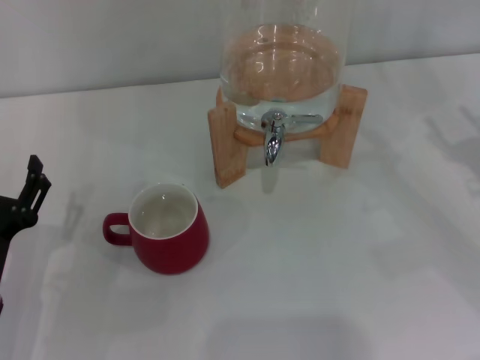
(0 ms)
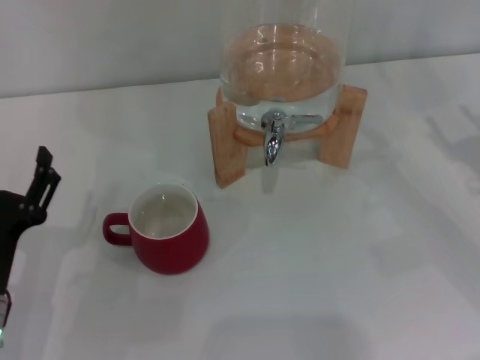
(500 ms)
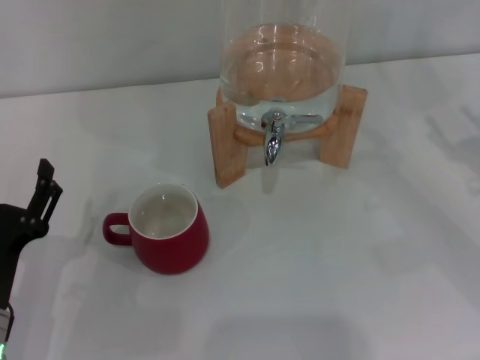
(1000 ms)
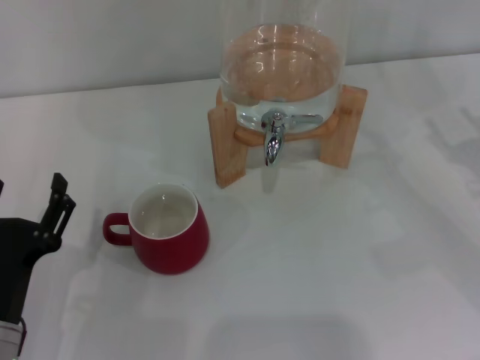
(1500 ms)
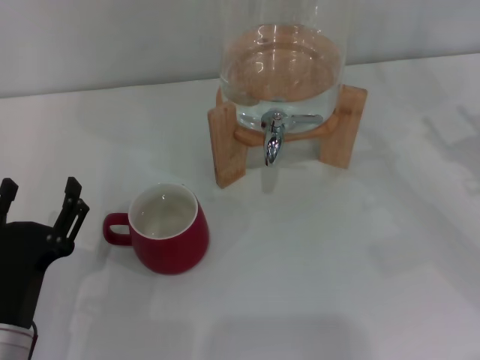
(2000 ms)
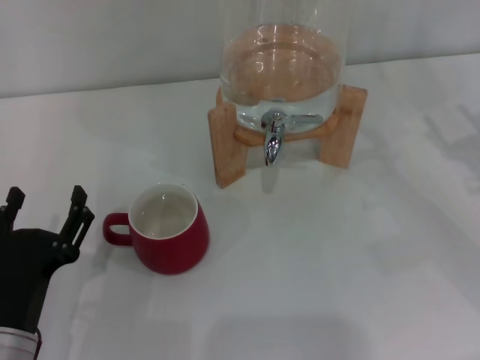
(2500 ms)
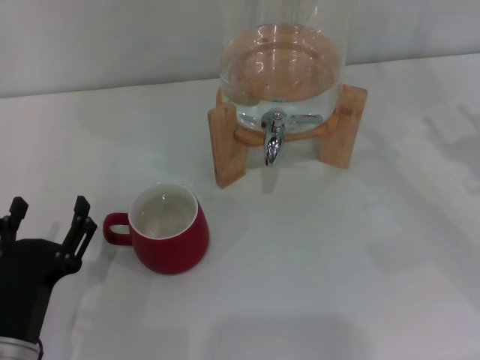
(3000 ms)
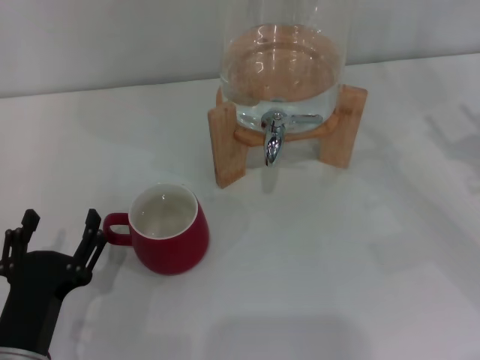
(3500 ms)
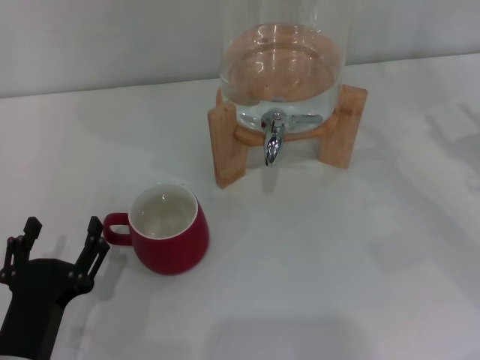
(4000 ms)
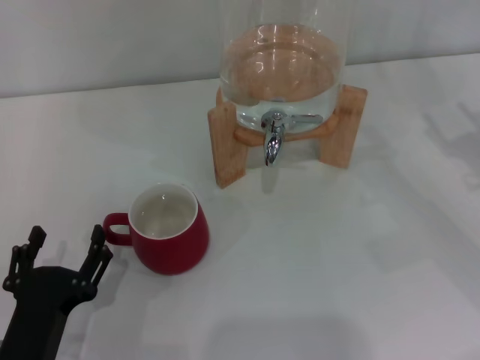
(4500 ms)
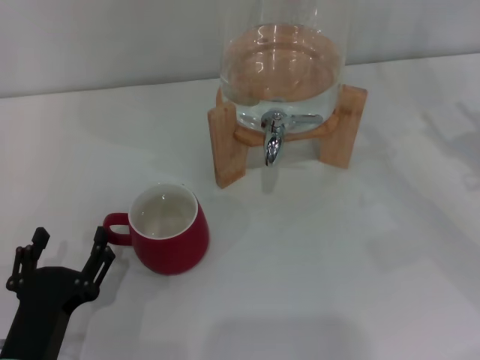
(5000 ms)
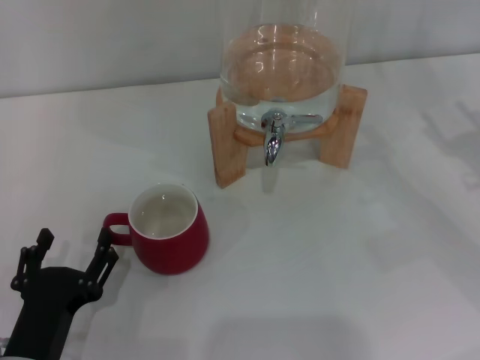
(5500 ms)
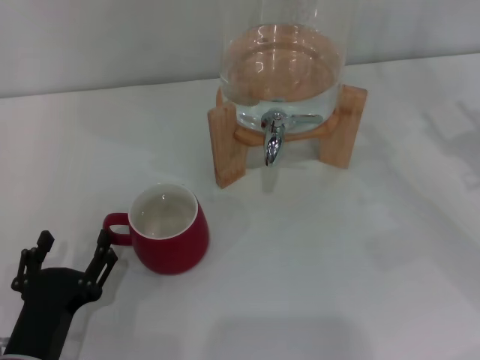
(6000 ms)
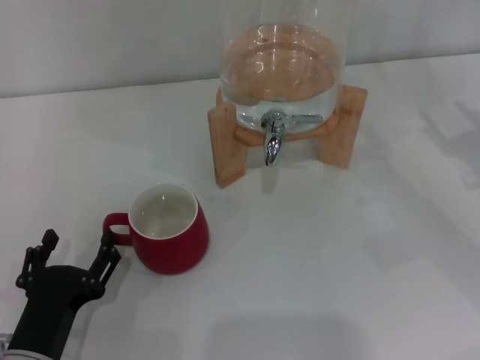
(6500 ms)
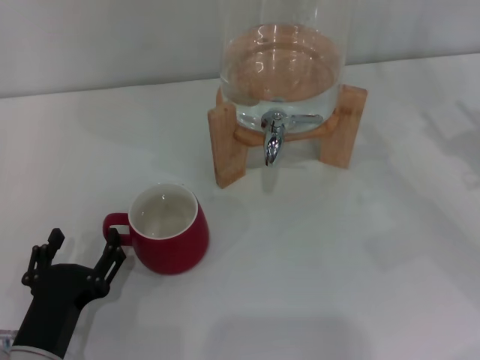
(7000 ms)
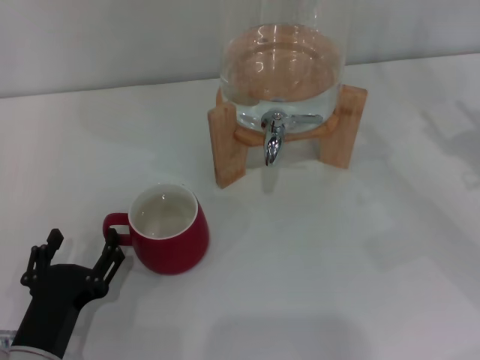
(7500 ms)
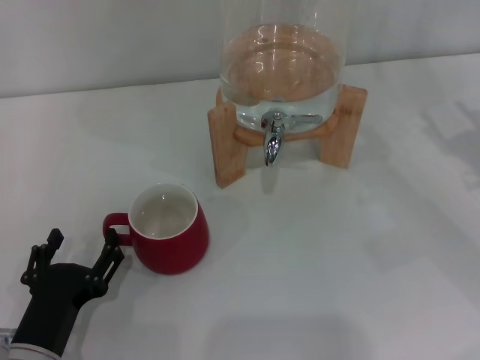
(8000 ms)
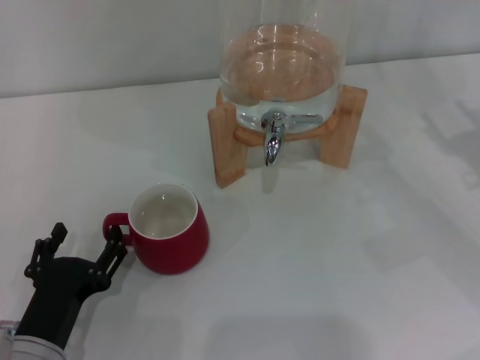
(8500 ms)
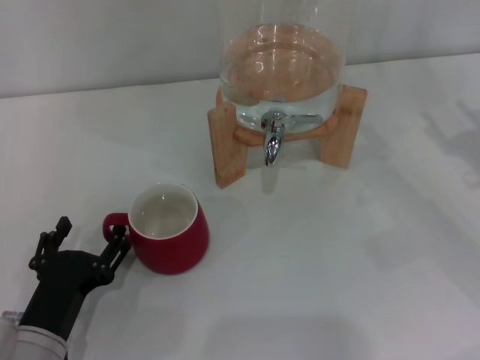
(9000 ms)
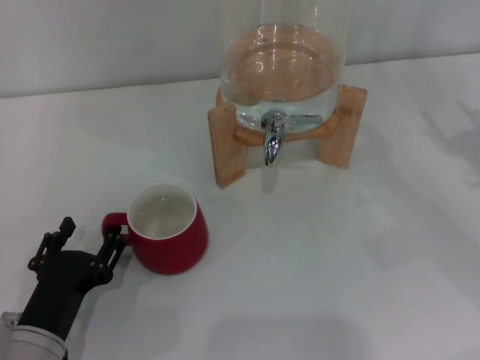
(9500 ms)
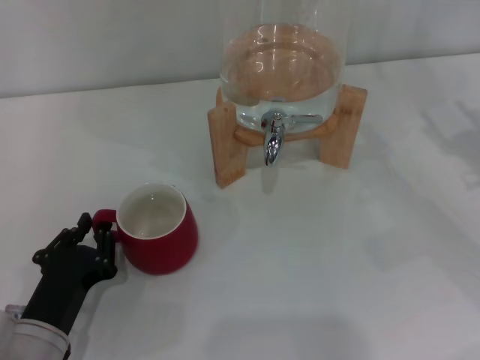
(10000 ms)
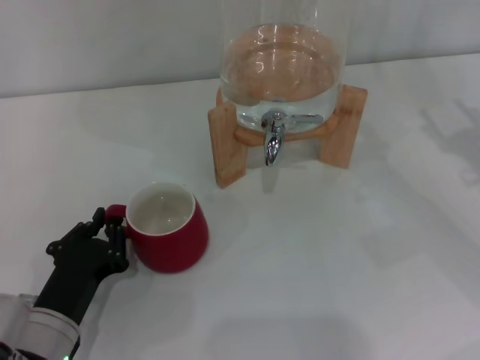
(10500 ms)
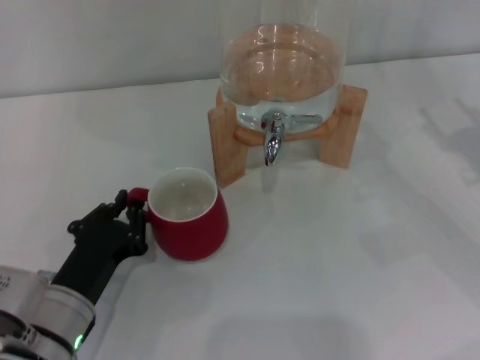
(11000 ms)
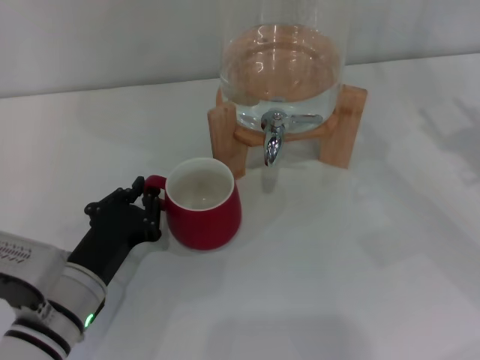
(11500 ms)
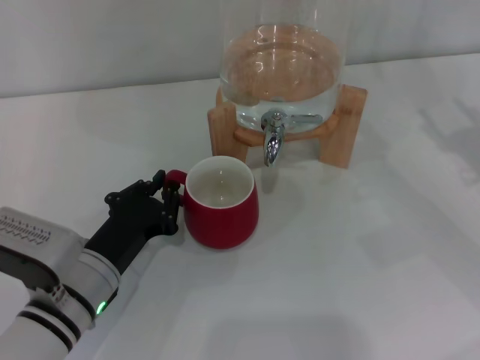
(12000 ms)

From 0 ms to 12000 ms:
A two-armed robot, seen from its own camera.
Task of the whole recording: the left gripper pick up the red cup and place it horizontally under the faucet, the right gripper turn on the faucet to fill the cup, and then turn off the faucet.
From 0 ms to 2000 ms: The grippers stay close to where they were, moving slightly.
From 2000 ms to 6000 ms: The grippers stay close to where they were, moving slightly.
From 6000 ms to 8000 ms: Neither gripper changes place.
From 8000 ms to 10000 ms: The left gripper closes.
From 10000 ms to 12000 ms: The left gripper shifts some 5 cm forward, and closes up.

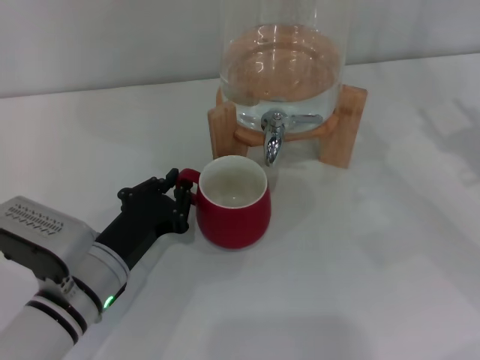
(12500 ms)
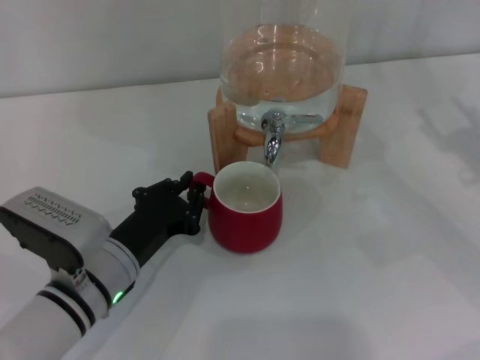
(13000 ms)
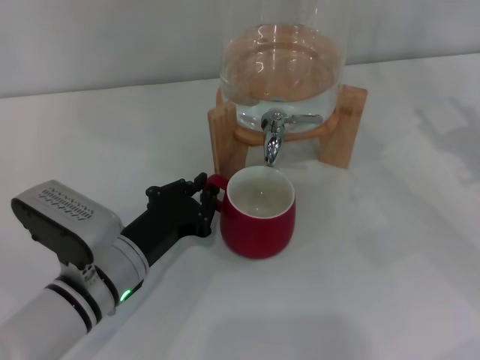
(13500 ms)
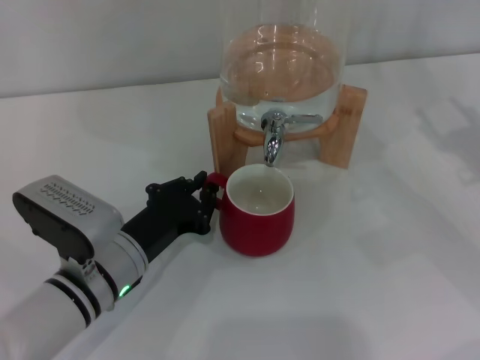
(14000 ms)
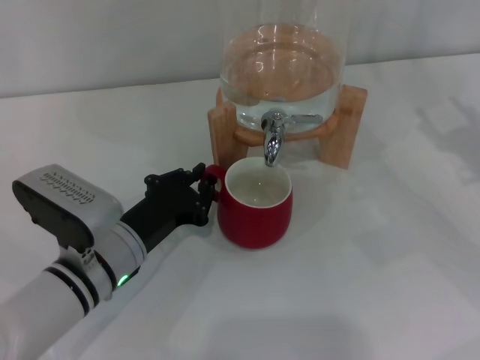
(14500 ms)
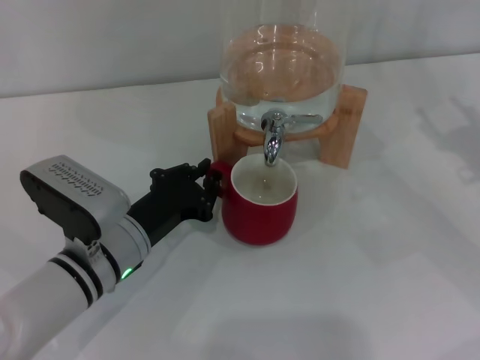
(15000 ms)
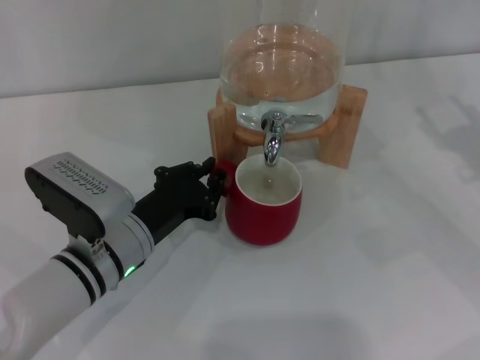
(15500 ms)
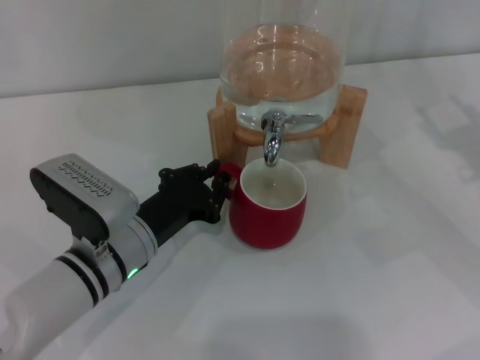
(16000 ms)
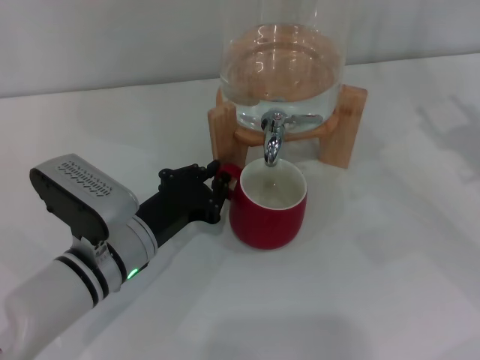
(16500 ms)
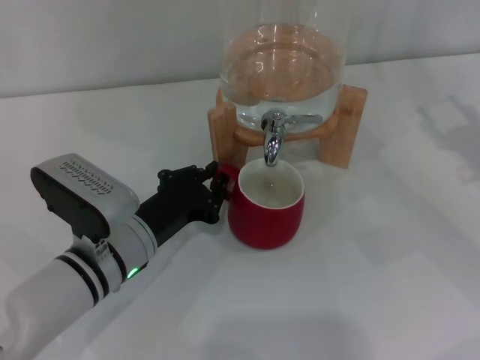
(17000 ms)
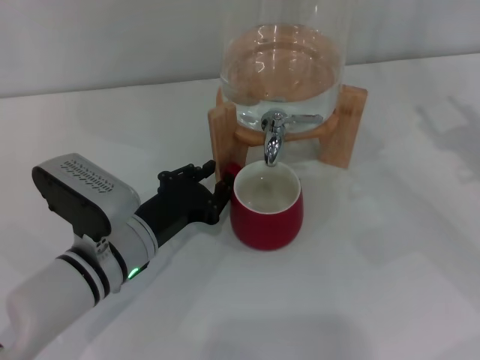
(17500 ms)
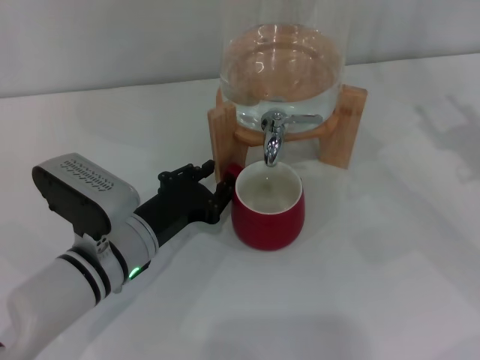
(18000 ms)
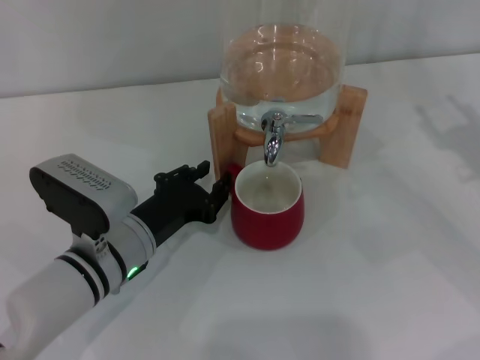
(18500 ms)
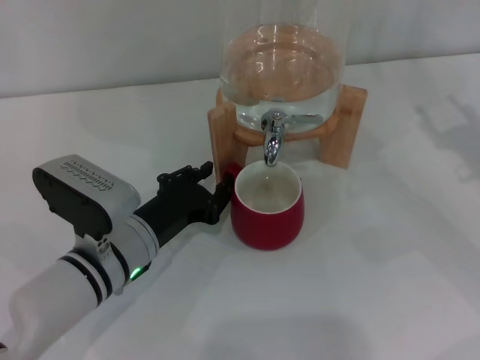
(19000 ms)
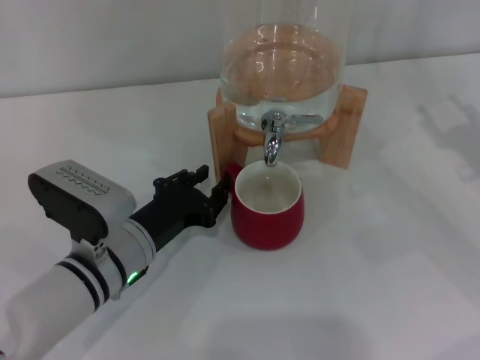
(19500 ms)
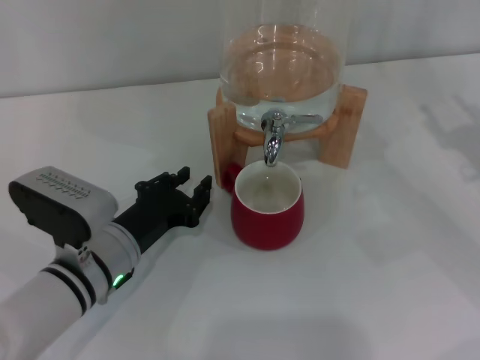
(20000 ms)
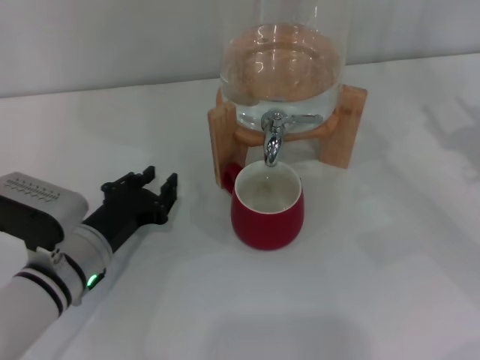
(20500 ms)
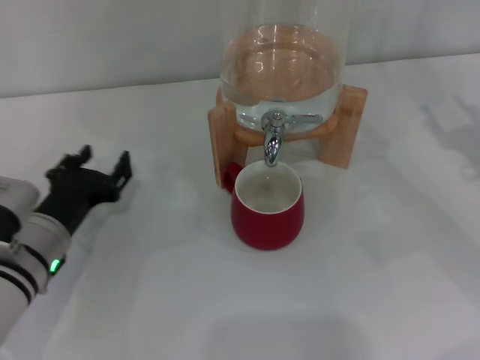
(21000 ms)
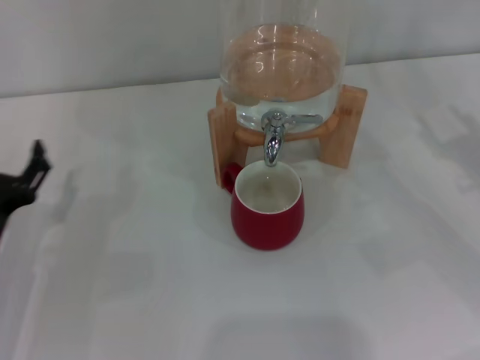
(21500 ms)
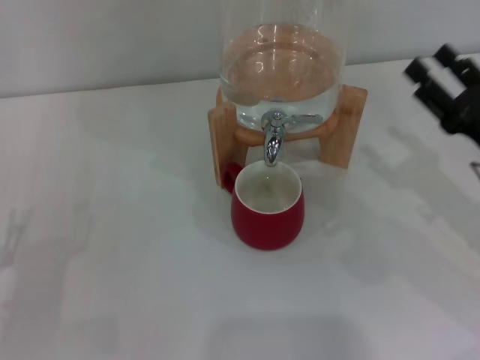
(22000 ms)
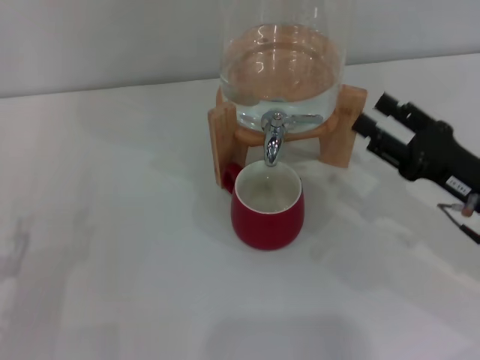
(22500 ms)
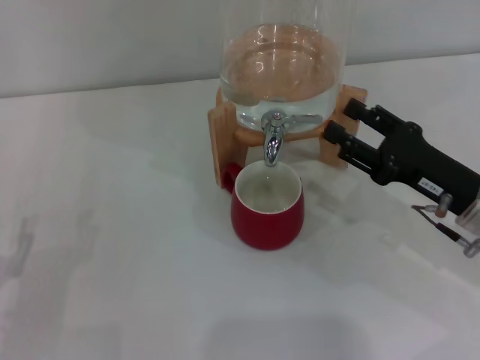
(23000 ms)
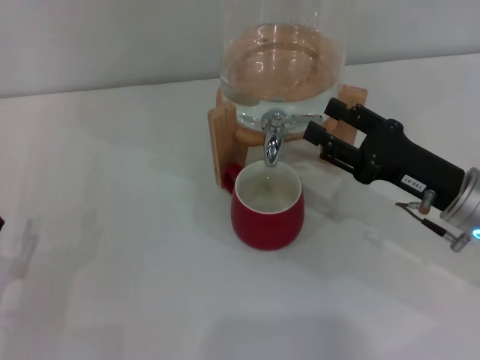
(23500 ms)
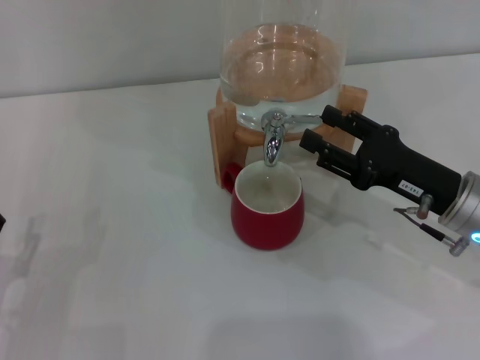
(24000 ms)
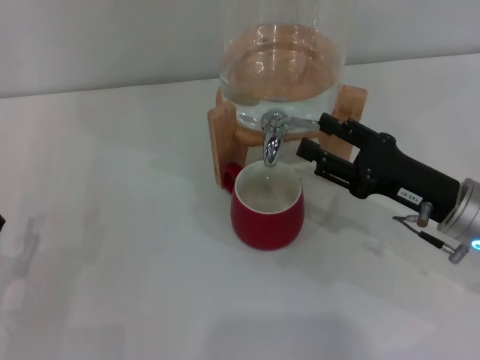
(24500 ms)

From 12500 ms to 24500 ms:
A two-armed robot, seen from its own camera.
Task of the whole recording: the left gripper pick up the red cup and place it horizontally under the faucet, the right gripper turn on the faucet to fill the cup, and then turn off the faucet.
Step, from 12500 ms to 20000 ms: Move the cup beneath the water dispenser nozzle with the left gripper.
From 12500 ms to 14500 ms: The grippers make only small movements.
From 14500 ms to 16500 ms: Both grippers stay put.
From 16500 ms to 18500 ms: The left gripper opens up.
From 18500 ms to 20500 ms: The grippers stay close to where they were, moving slightly.
From 20500 ms to 22500 ms: The left gripper heads to the left and backward, covering approximately 15 cm, and opens its fingers. The right gripper is displaced to the left by about 5 cm.
From 22500 ms to 24500 ms: The grippers stay close to where they were, moving slightly.

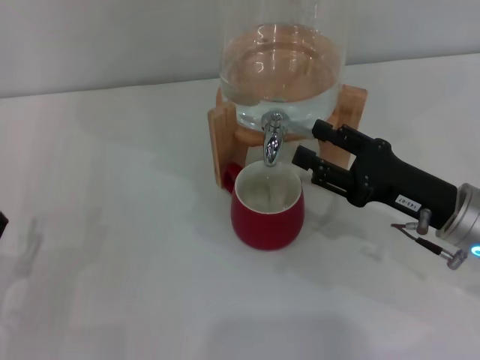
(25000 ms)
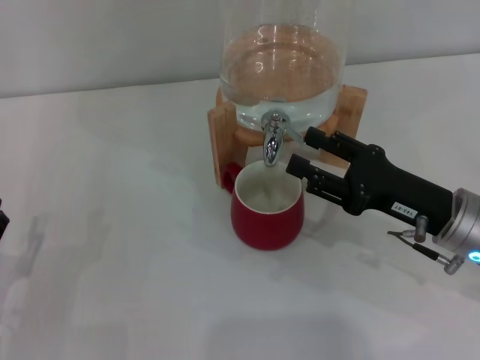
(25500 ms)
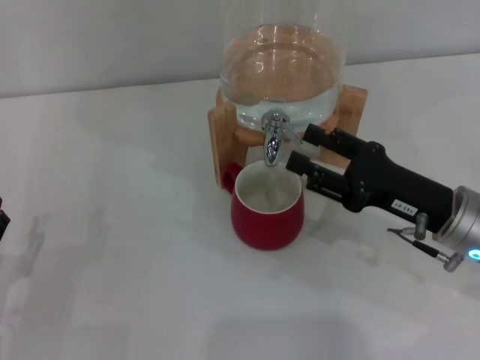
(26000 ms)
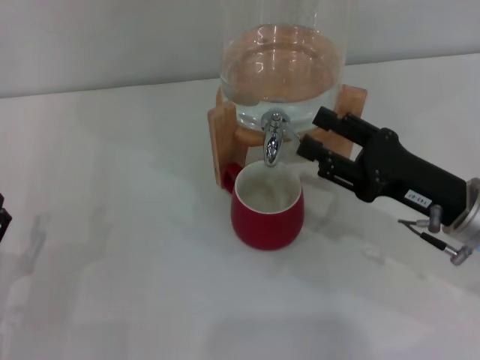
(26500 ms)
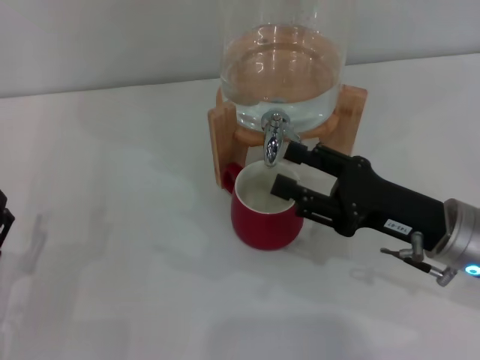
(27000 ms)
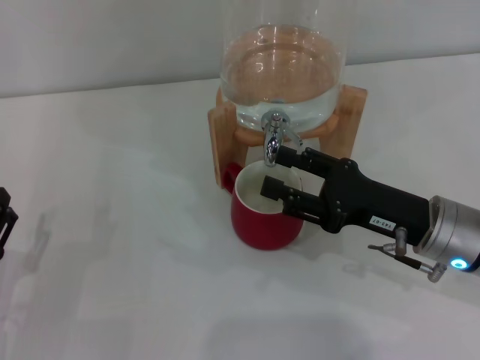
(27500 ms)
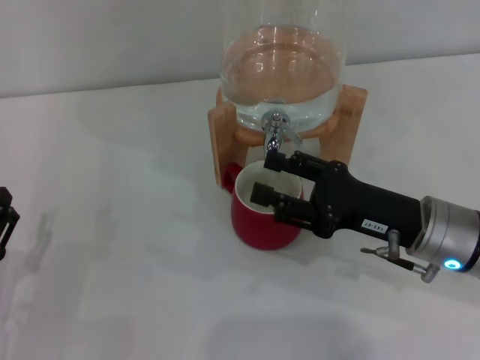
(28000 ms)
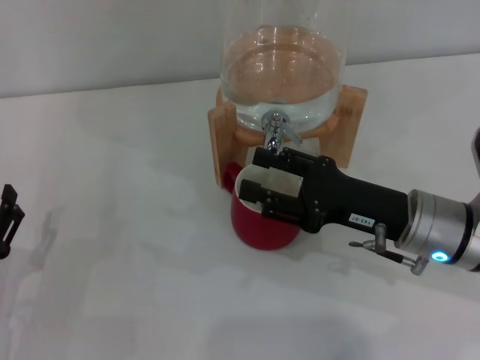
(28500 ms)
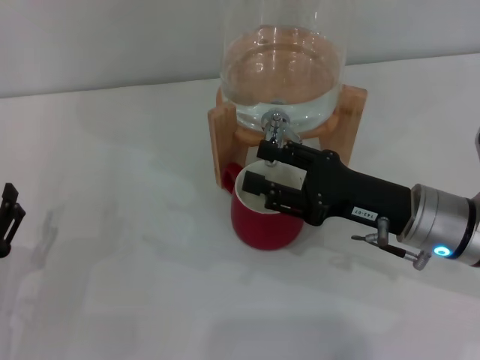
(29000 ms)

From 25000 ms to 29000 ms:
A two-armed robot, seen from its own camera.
Task of the whole recording: the left gripper pick up the red cup and place it horizontally under the faucet, the right gripper turn on the faucet to fill the cup, and then turn off the faucet.
From 25000 ms to 29000 ms: The grippers make only small movements.
